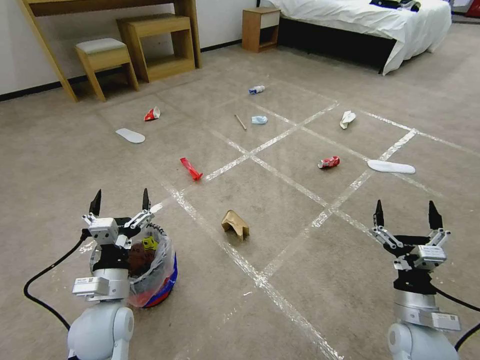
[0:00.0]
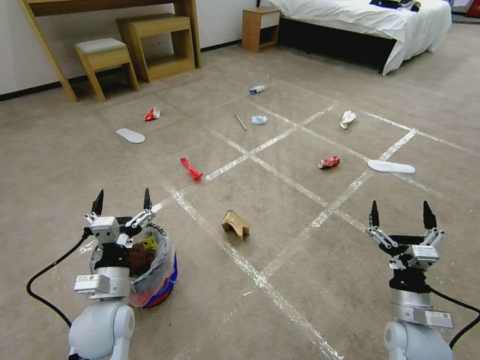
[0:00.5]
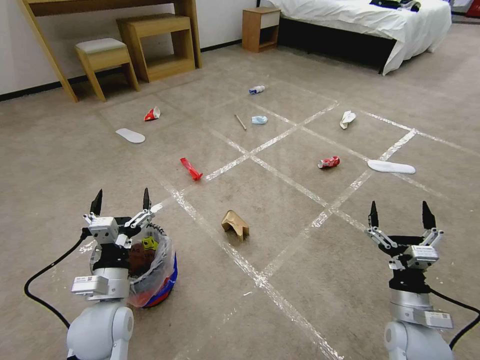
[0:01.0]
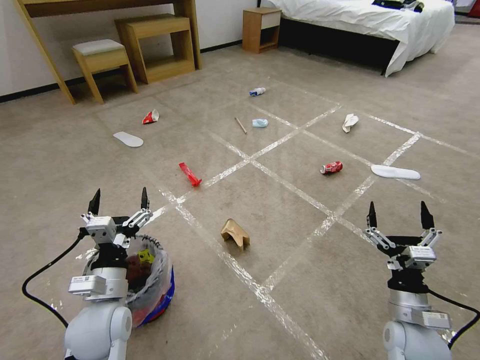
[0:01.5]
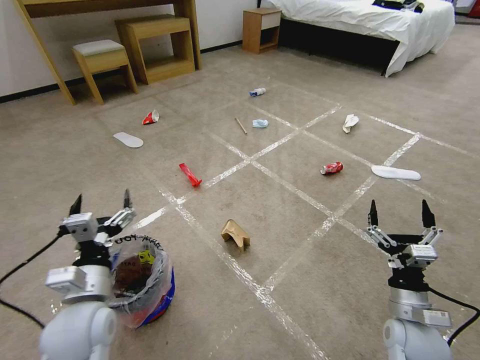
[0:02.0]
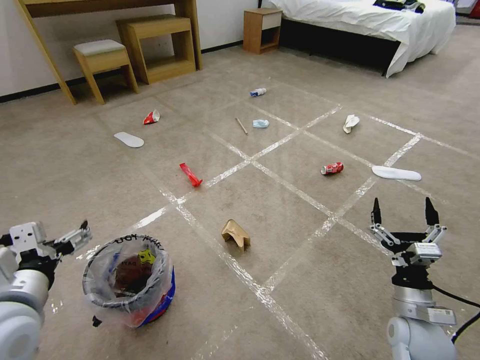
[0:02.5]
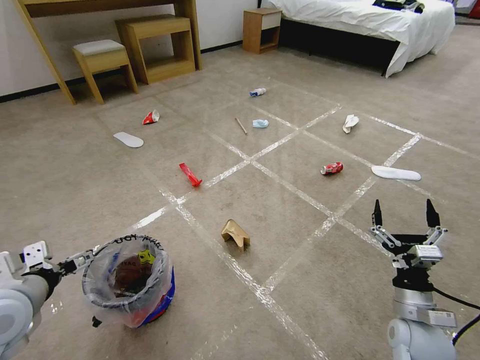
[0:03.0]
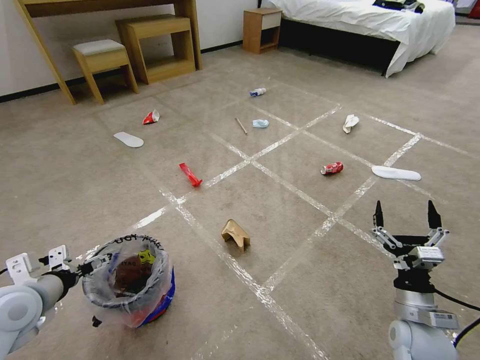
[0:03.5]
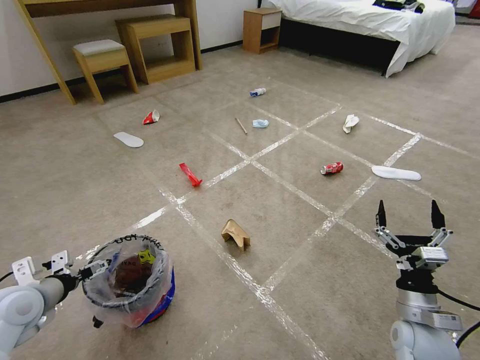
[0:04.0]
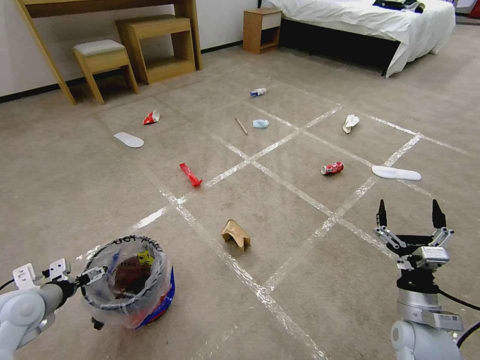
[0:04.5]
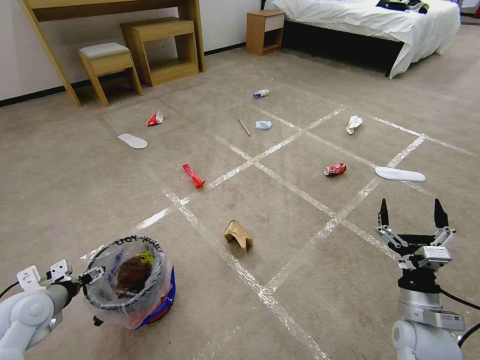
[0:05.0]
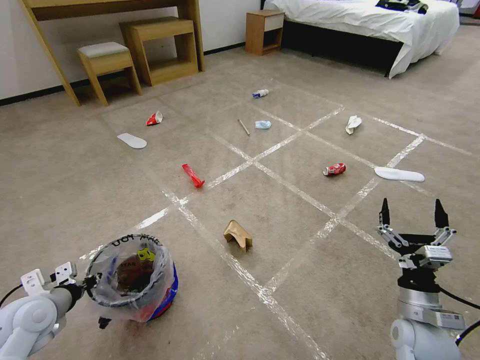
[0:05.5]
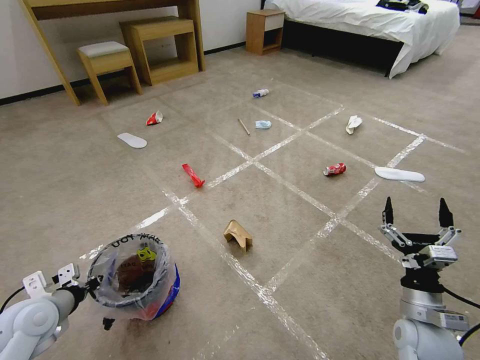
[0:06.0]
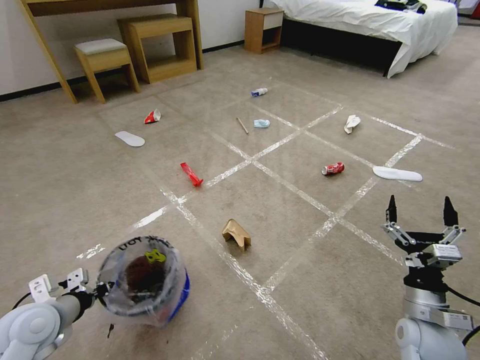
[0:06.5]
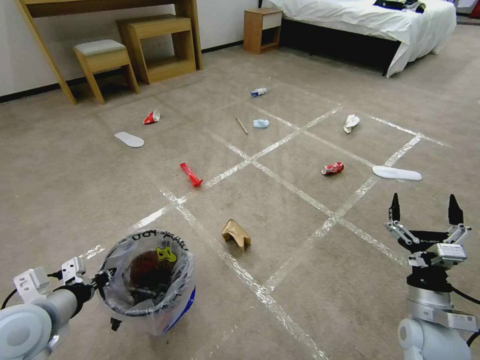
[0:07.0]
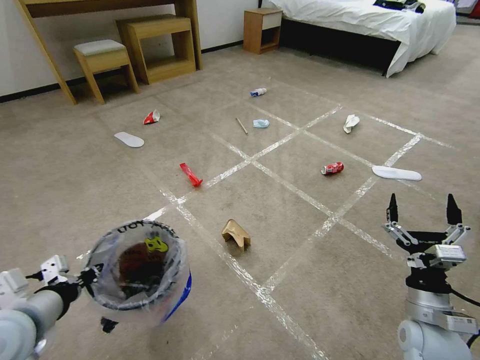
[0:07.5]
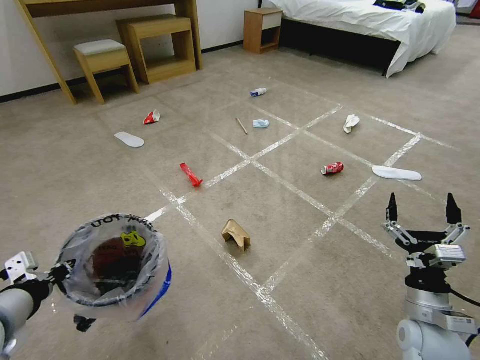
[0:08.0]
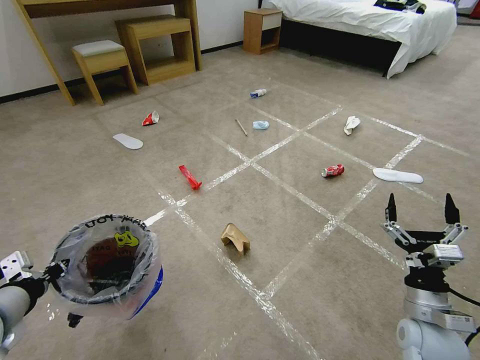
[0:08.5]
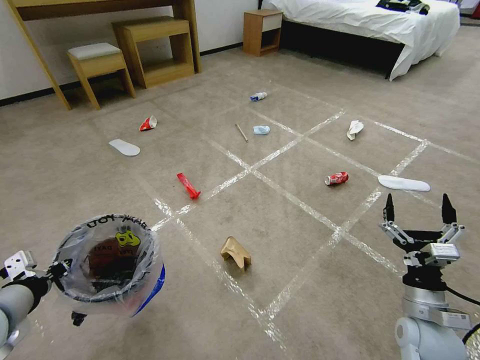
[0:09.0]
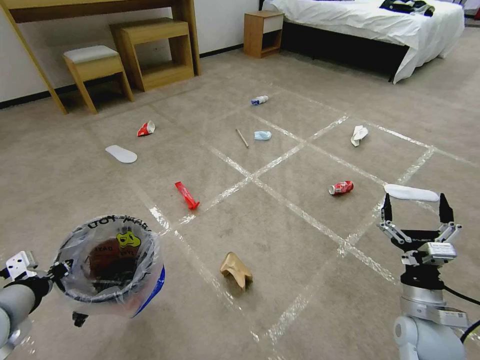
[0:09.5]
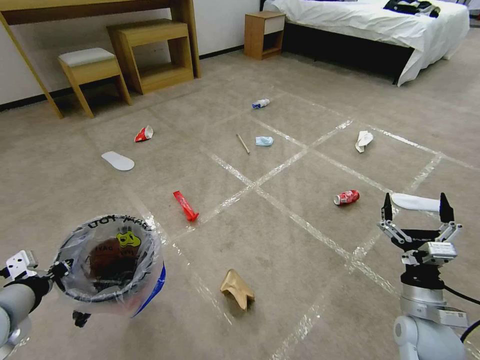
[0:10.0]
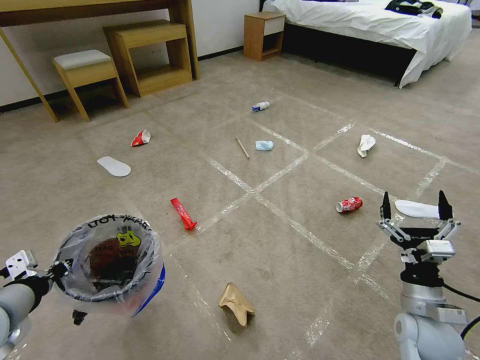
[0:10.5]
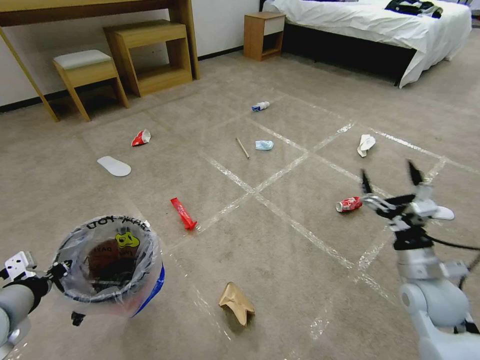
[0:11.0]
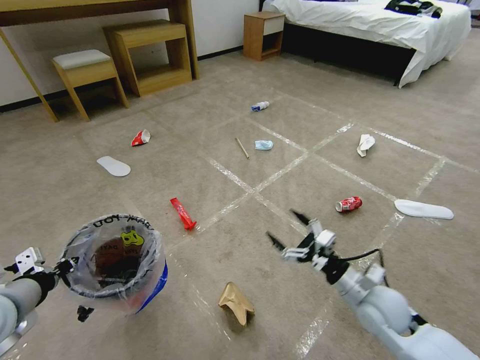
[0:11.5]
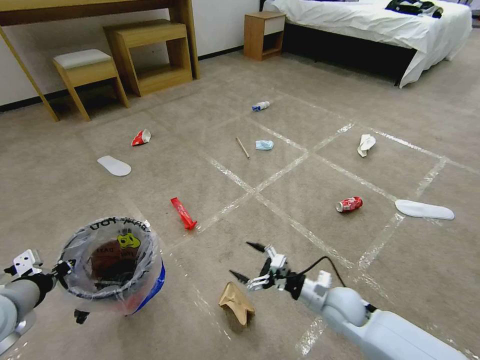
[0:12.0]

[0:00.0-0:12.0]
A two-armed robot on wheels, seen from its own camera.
Task of the whole recording: Pick up the trash bin and place the garbage on the floor into it.
0:02.0 to 0:04.0: The left gripper heads to the left, covering approximately 15 cm.
0:04.0 to 0:06.0: The left gripper closes its fingers.
0:06.0 to 0:08.0: The left gripper shifts approximately 15 cm upward and backward.
0:10.0 to 0:12.0: The right gripper is displaced to the left, forward and downward by some 15 cm.

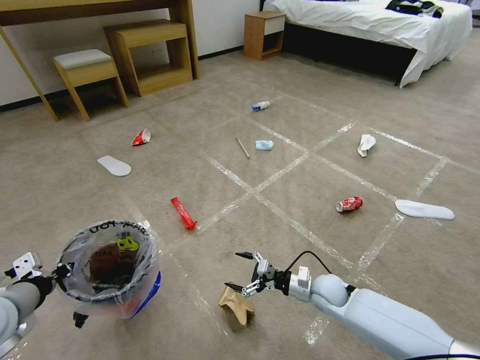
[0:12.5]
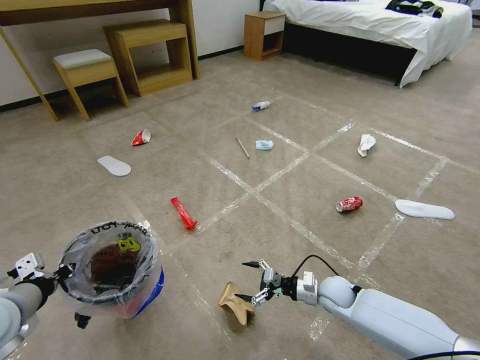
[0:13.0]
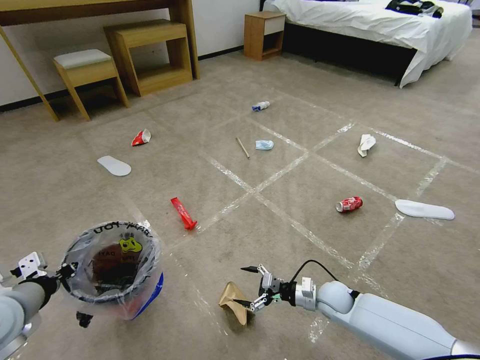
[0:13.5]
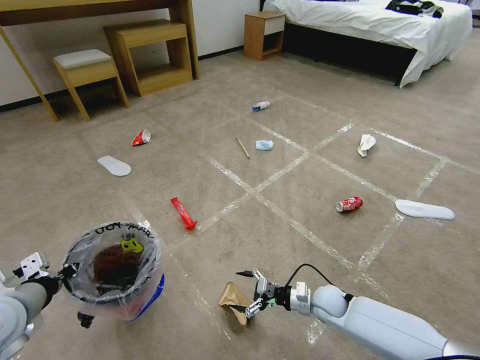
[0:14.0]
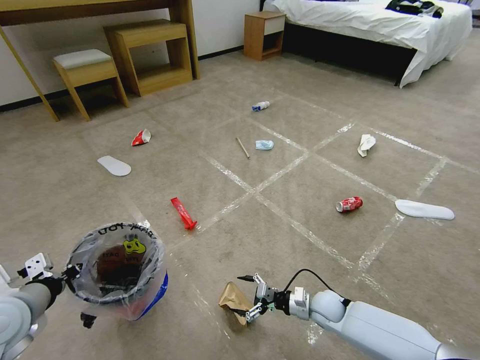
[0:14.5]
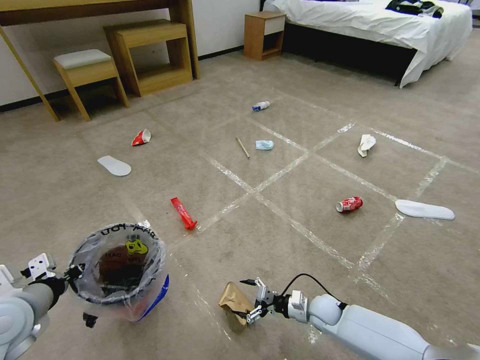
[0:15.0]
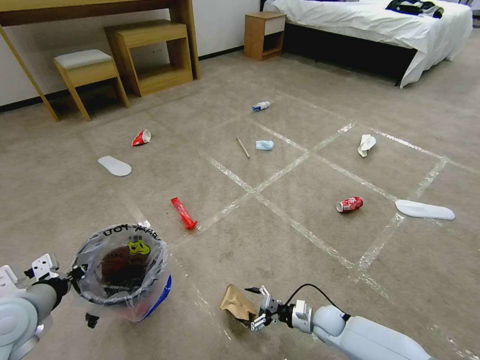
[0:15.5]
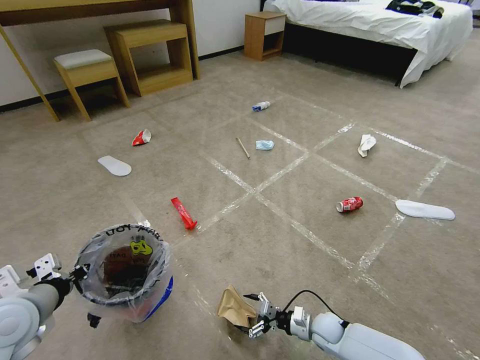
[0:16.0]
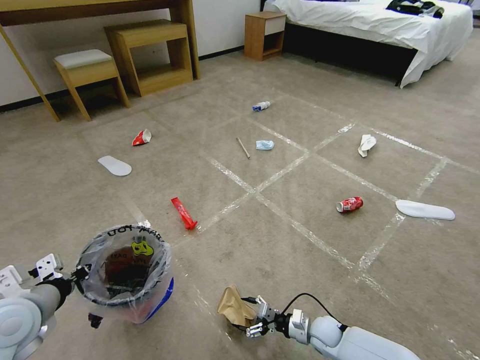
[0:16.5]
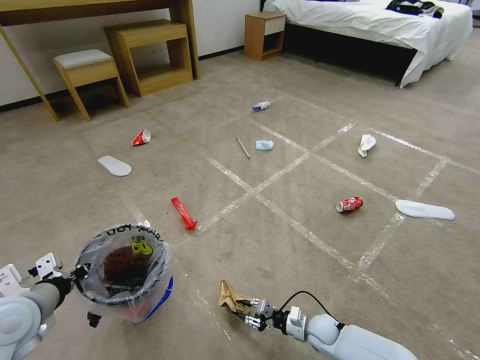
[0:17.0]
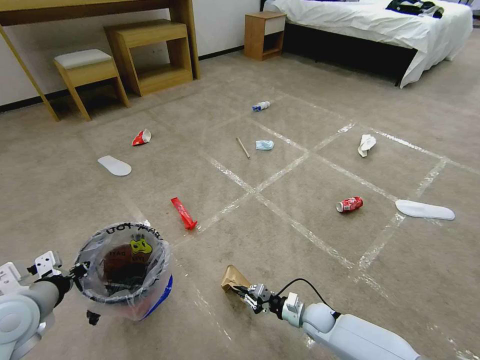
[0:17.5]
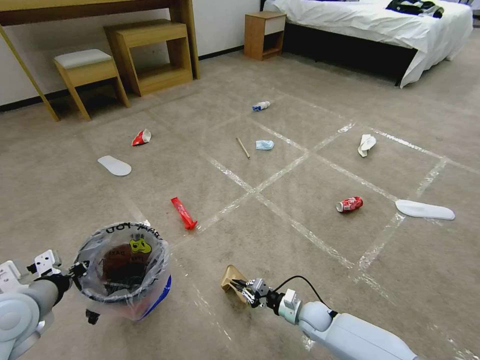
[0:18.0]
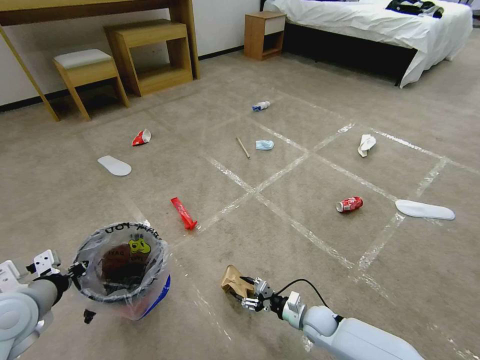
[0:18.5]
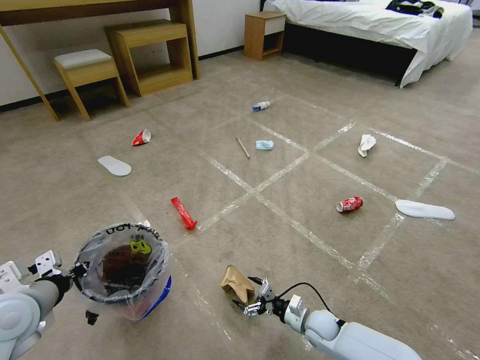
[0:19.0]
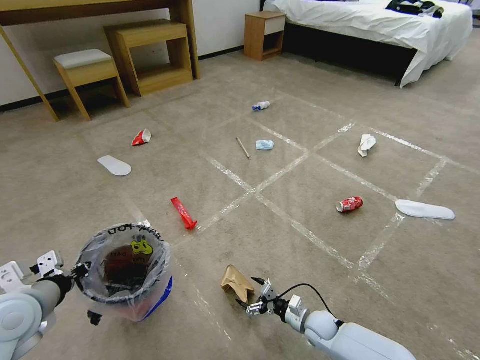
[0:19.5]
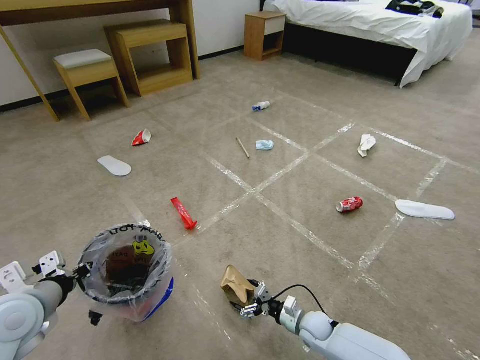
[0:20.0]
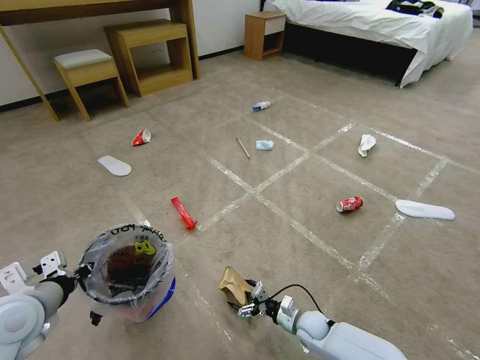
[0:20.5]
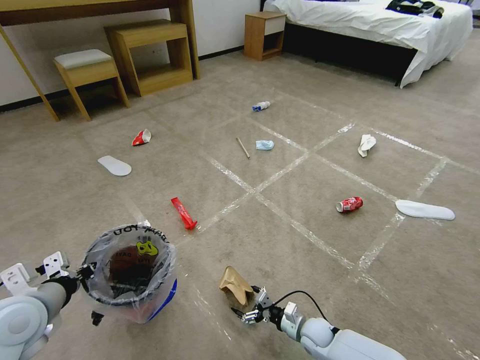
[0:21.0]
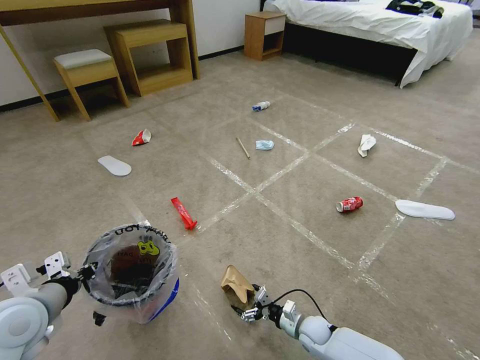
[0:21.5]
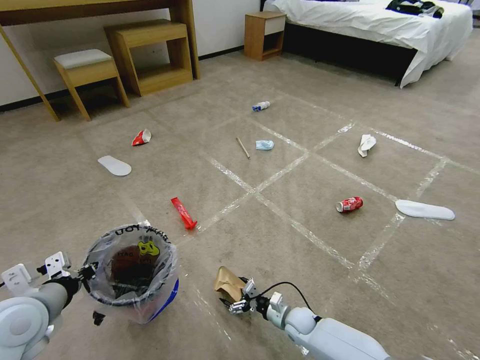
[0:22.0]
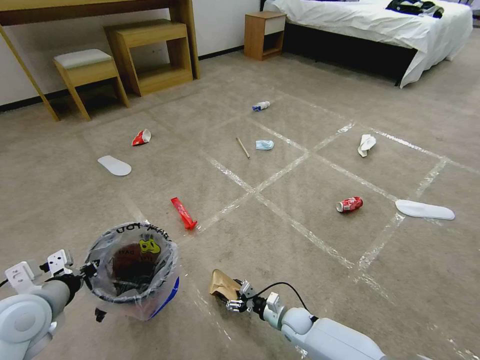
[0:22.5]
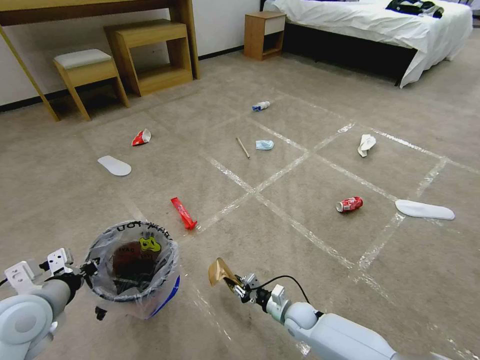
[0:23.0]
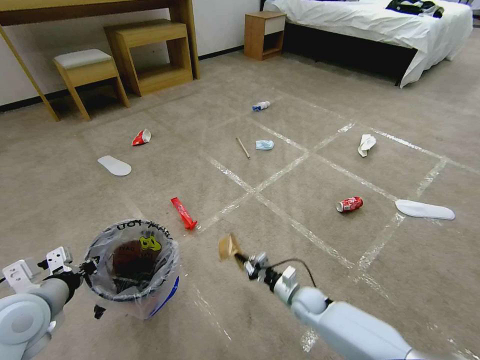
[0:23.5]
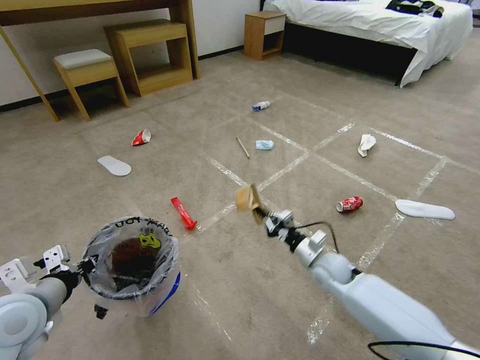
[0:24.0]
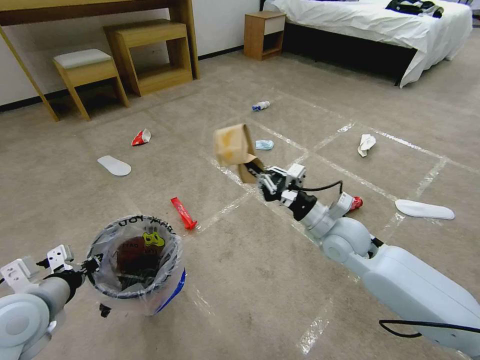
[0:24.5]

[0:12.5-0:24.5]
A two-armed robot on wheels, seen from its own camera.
Task of the whole recording: Pick up the trash bin and place the garbage on the floor into it.
0:12.5 to 0:14.5: The right gripper goes approximately 5 cm downward.
0:14.5 to 0:16.5: The right gripper heads downward, covering approximately 5 cm.
0:16.5 to 0:18.5: The right gripper closes, then opens again.
0:18.5 to 0:20.5: The right gripper opens its fingers.
0:20.5 to 0:22.5: The grippers make only small movements.
0:22.5 to 0:24.5: The right gripper moves upward, roughly 35 cm, and closes up.

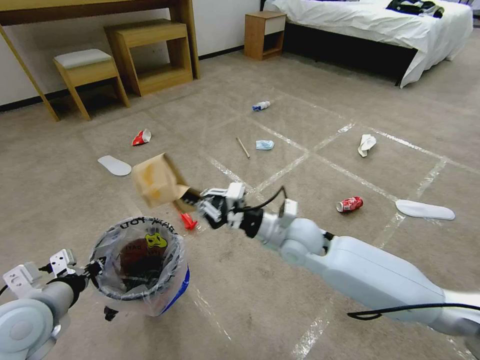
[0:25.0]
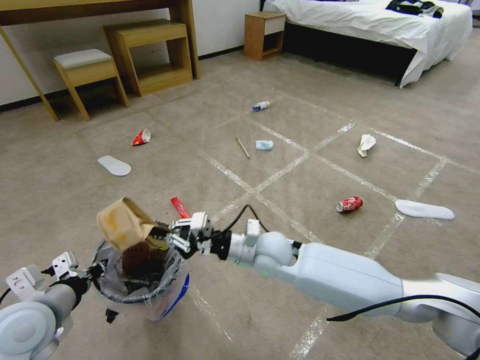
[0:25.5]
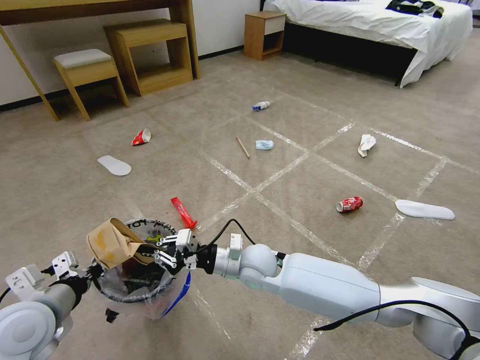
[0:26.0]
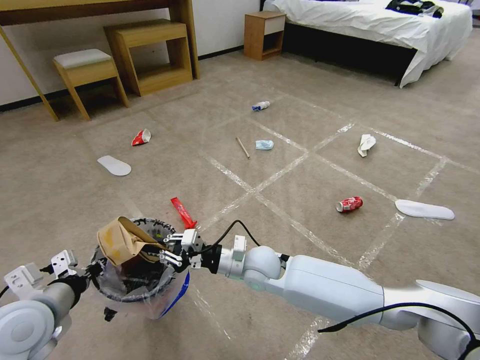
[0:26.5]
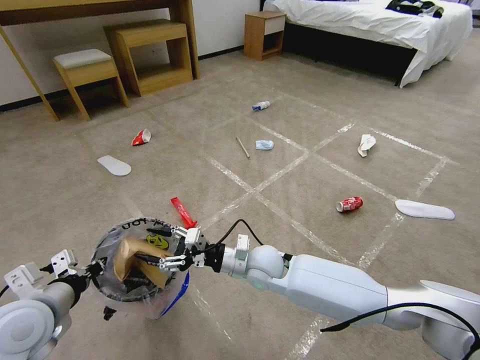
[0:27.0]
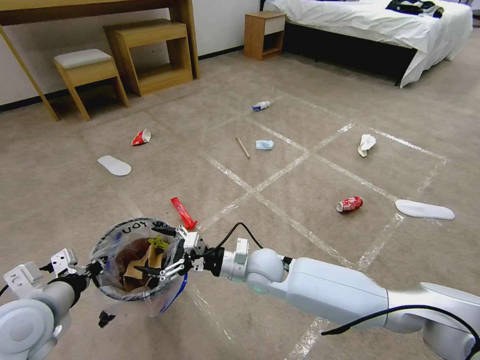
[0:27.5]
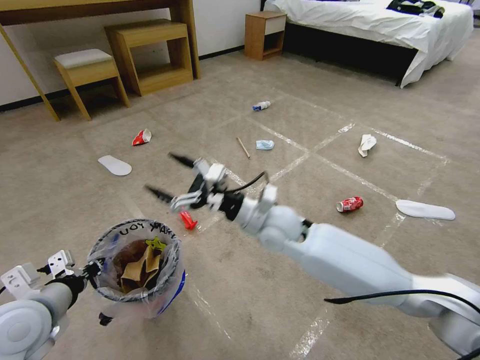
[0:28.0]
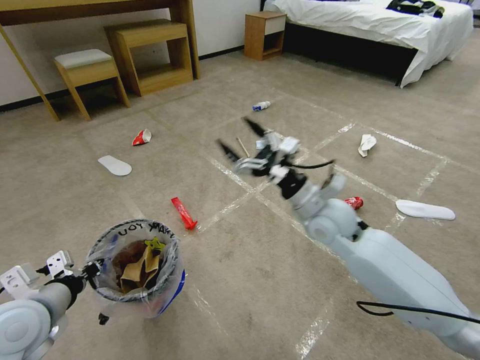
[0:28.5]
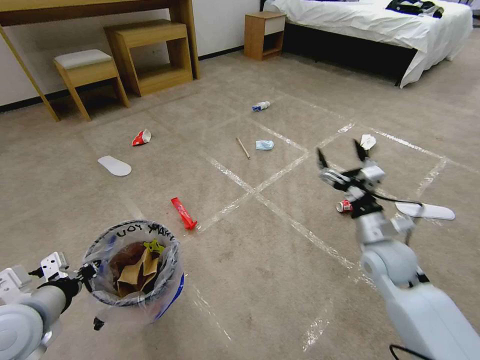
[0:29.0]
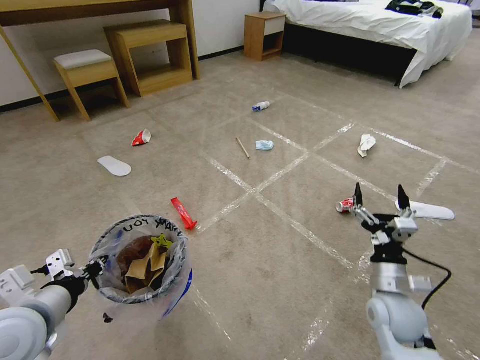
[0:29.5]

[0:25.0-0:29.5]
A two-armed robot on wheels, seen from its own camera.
Task of the whole recording: Pick up the trash bin and place the garbage on the floor into it.
0:25.0 to 0:27.0: The right gripper goes some 10 cm downward and to the left, and opens its fingers.
0:27.0 to 0:29.5: The right gripper shifts approximately 30 cm to the right and backward.
